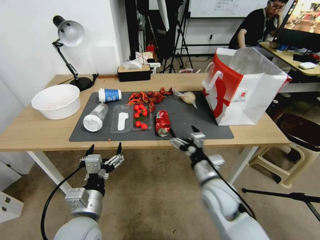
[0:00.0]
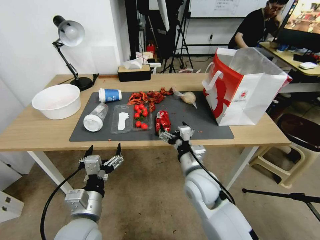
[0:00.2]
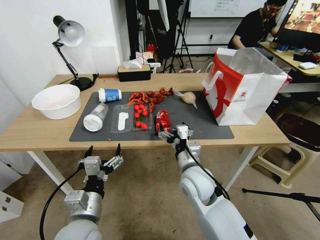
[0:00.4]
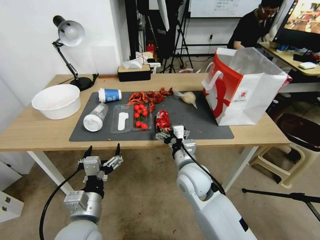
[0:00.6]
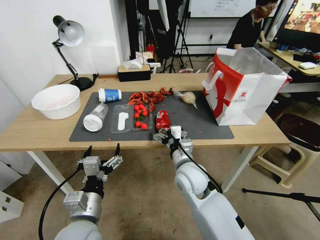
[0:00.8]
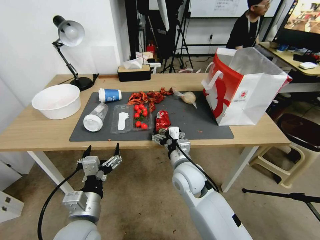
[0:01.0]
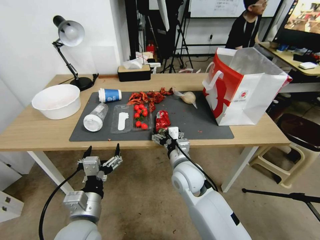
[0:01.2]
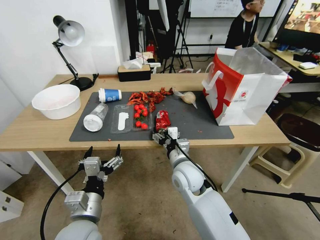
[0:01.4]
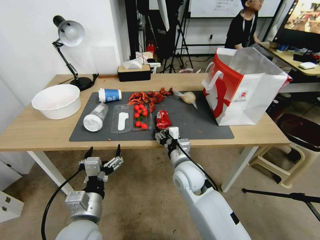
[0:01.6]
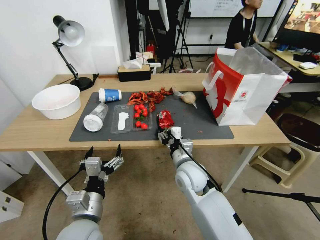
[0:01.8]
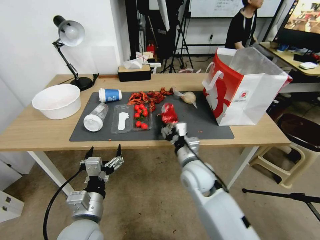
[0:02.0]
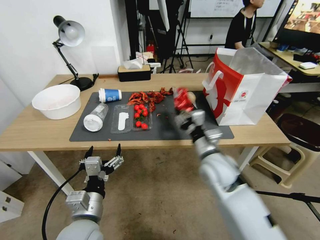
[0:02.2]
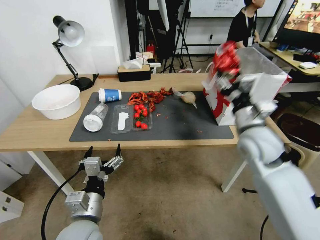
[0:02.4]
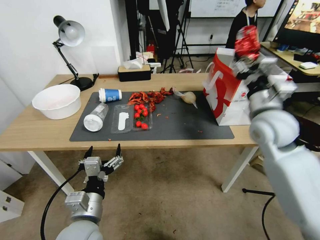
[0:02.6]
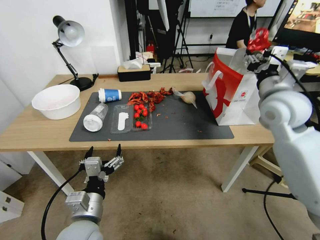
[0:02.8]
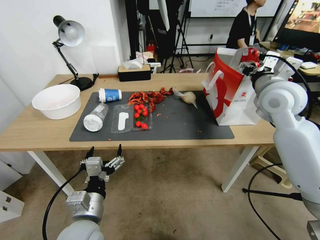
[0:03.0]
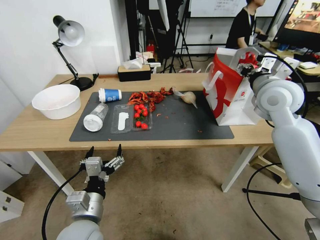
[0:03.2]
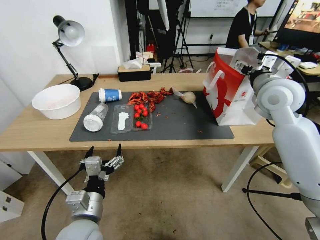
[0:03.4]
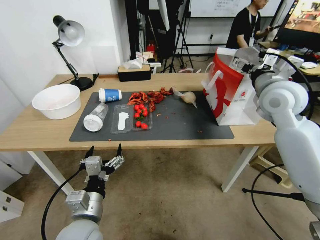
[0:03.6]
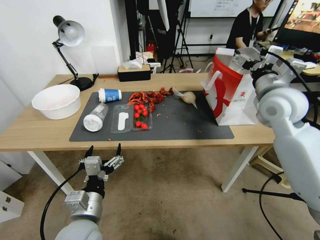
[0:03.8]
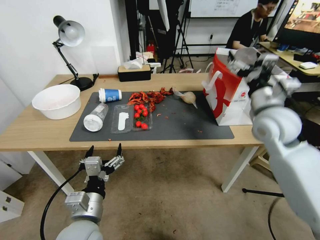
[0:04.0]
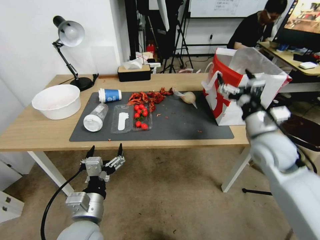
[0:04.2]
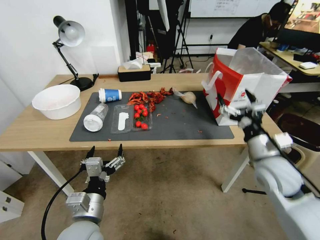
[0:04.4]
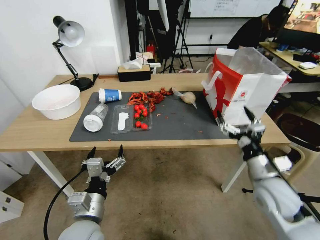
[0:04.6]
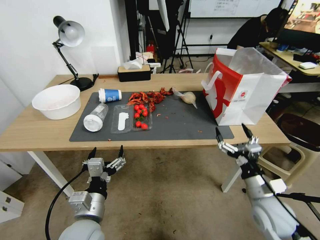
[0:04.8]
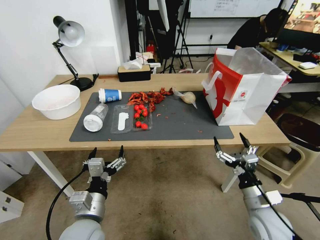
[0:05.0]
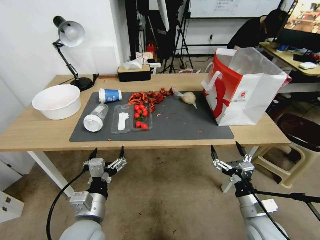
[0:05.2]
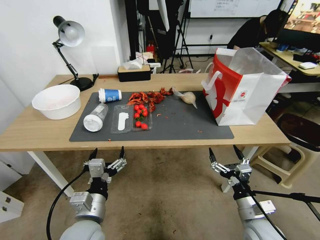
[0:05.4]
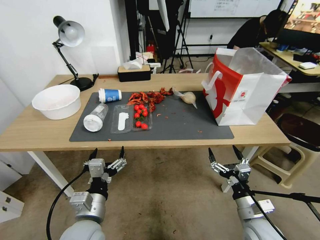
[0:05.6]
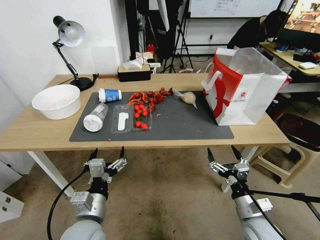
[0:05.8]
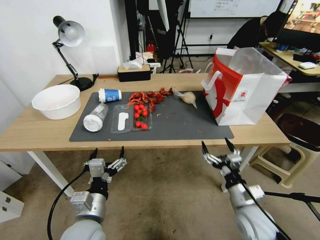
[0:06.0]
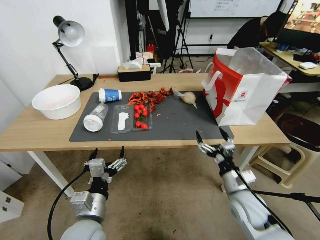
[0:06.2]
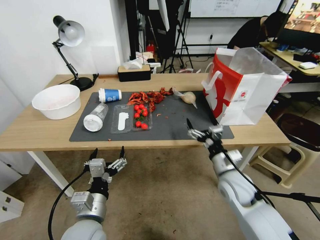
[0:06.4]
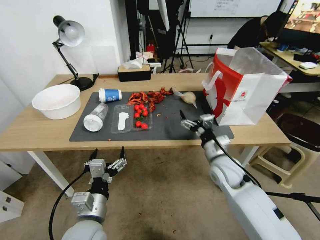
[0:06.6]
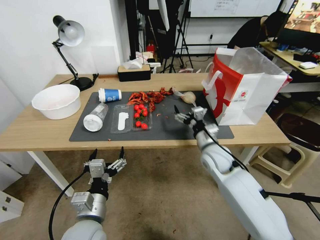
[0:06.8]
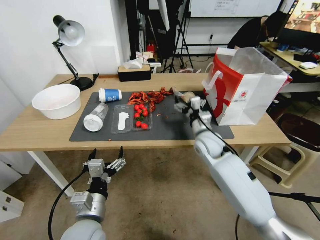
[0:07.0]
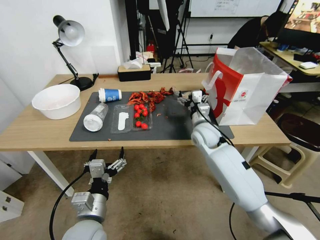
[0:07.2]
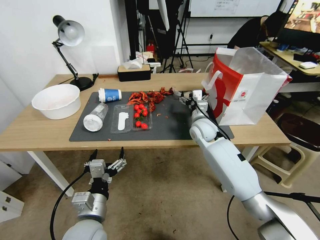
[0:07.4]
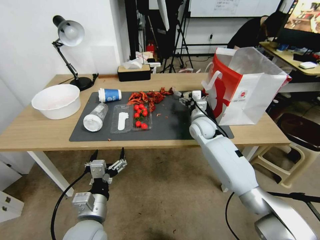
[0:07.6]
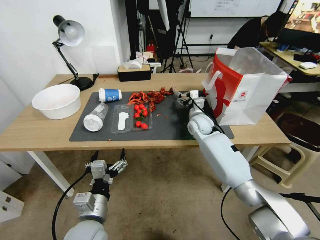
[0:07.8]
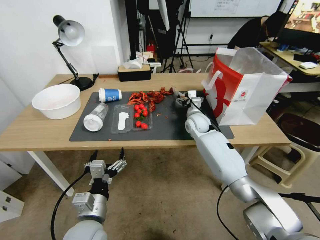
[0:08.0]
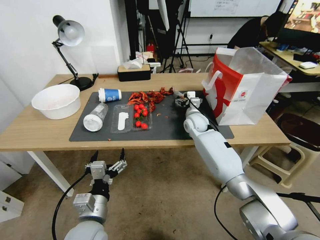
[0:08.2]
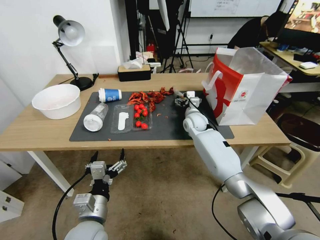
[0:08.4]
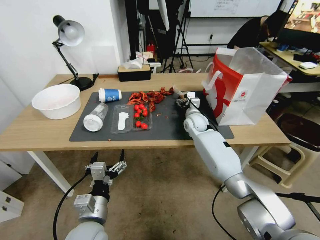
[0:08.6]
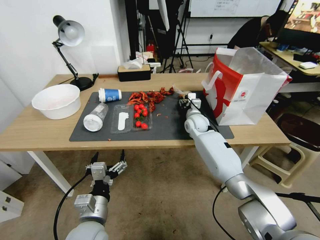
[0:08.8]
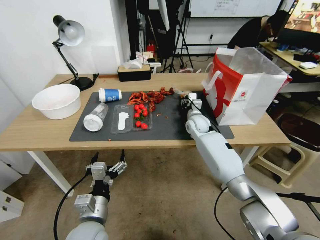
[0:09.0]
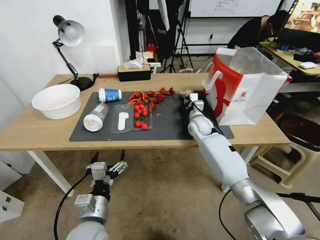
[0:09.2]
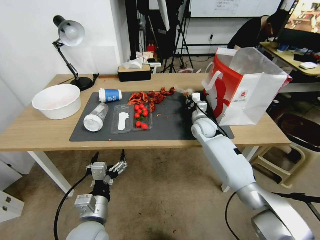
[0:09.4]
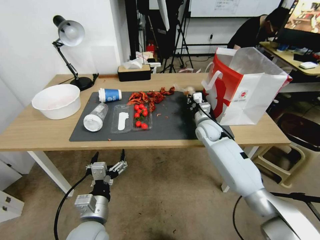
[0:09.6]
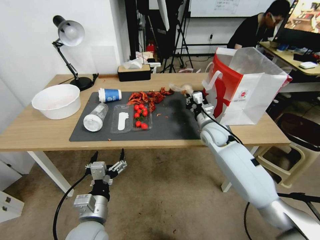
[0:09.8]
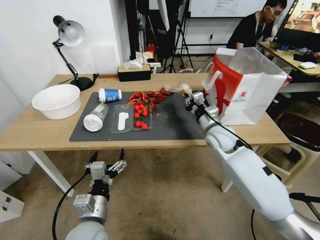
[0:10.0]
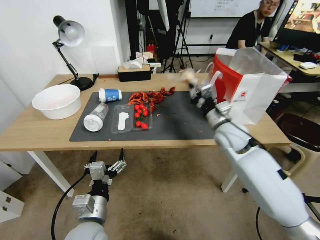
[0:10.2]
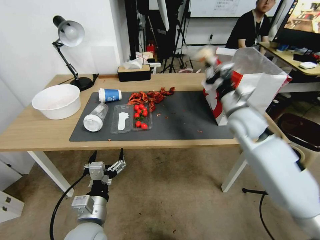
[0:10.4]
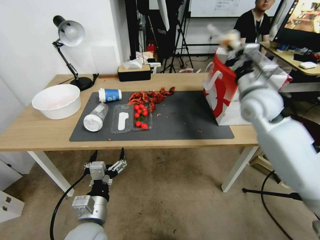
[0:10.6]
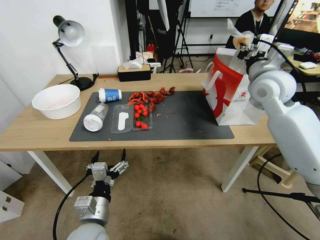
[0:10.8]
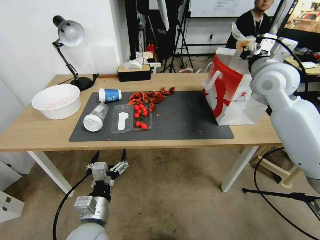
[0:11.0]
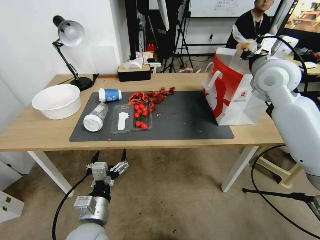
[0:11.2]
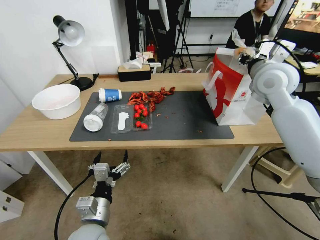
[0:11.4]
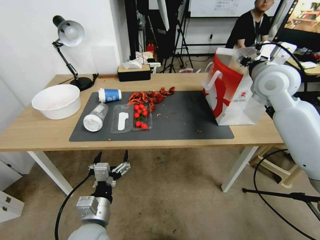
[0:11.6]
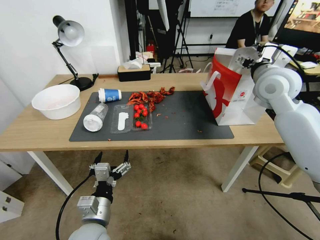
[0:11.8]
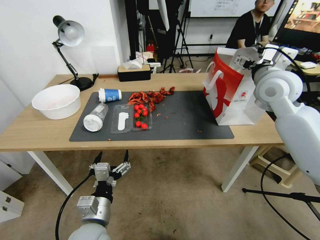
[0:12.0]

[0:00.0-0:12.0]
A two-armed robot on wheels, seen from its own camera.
0:00.0 to 0:01.6: The right gripper travels to the left and forward by roughly 15 cm, and closes up.
0:01.6 to 0:03.0: The right gripper moves upward and to the right, some 30 cm.
0:03.0 to 0:04.4: The right gripper goes roughly 20 cm downward and backward, and opens.
0:04.4 to 0:06.0: The right gripper shifts roughly 15 cm downward and backward.
0:06.0 to 0:07.6: The right gripper moves forward, some 30 cm.
0:07.6 to 0:09.0: The right gripper is displaced forward by some 5 cm, and closes up.
0:09.0 to 0:10.4: The right gripper is displaced upward, backward and to the right by approximately 20 cm.
0:10.4 to 0:12.0: The right gripper moves upward and to the right, some 15 cm, and opens its fingers.

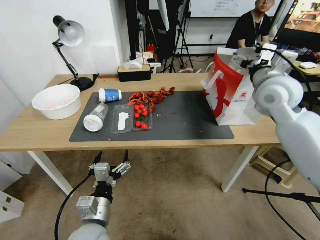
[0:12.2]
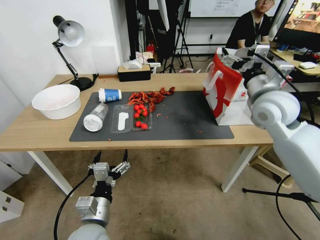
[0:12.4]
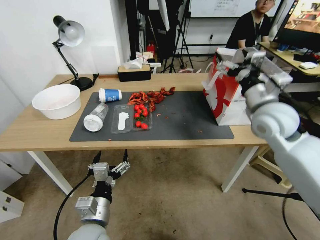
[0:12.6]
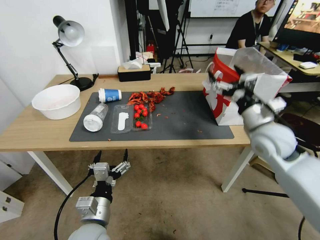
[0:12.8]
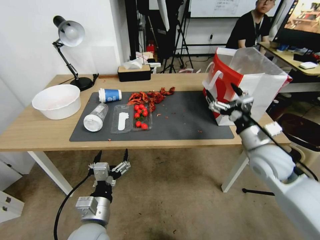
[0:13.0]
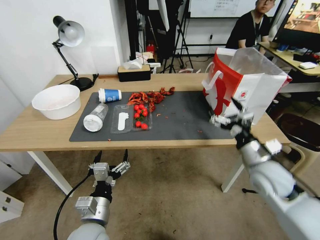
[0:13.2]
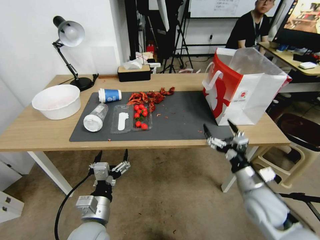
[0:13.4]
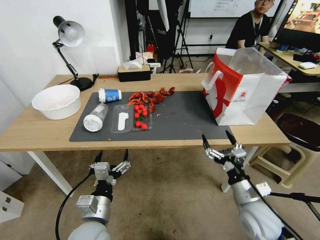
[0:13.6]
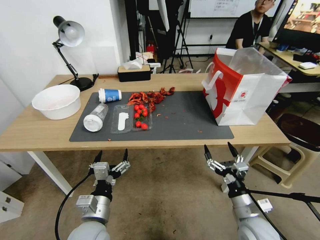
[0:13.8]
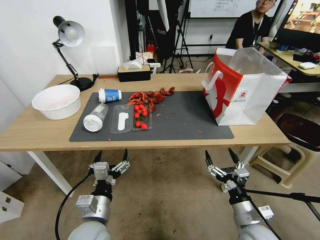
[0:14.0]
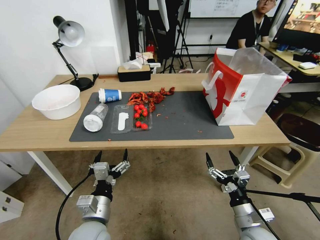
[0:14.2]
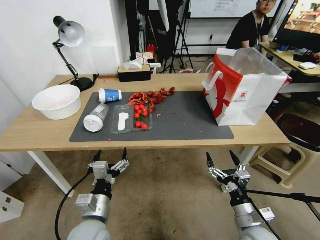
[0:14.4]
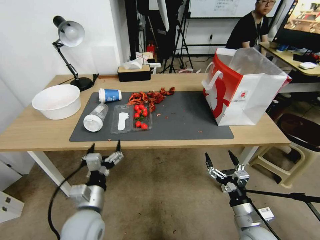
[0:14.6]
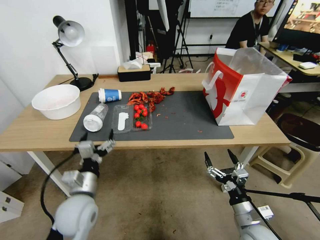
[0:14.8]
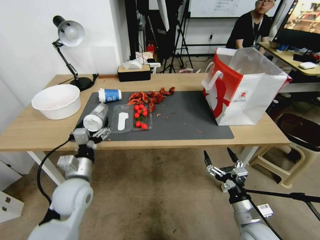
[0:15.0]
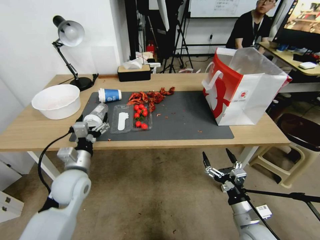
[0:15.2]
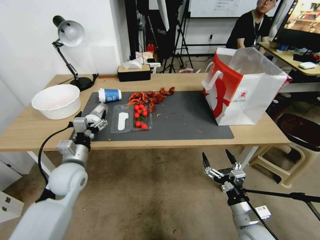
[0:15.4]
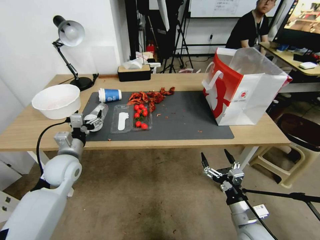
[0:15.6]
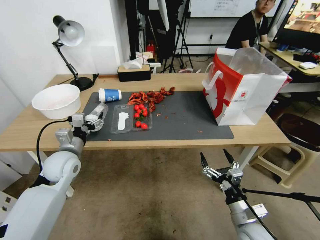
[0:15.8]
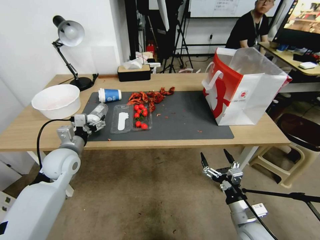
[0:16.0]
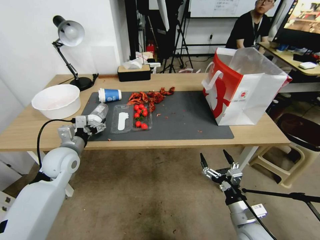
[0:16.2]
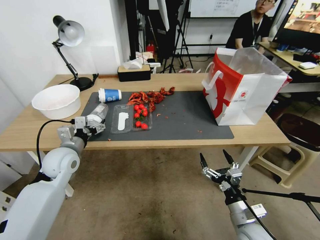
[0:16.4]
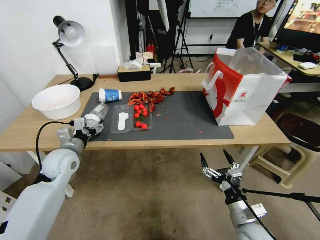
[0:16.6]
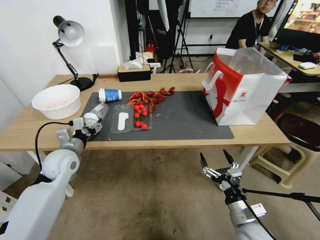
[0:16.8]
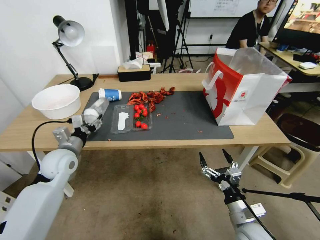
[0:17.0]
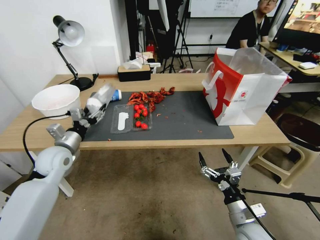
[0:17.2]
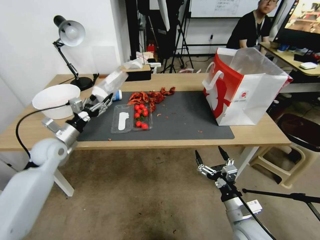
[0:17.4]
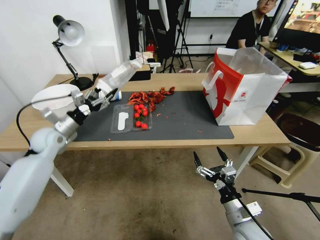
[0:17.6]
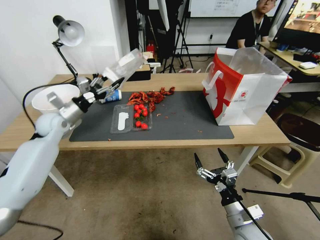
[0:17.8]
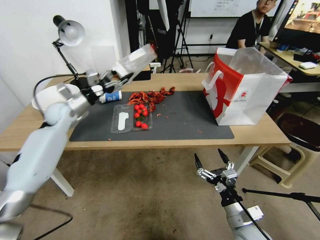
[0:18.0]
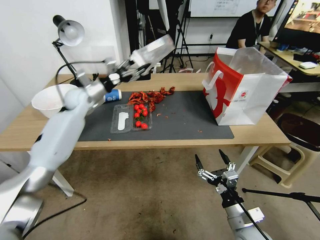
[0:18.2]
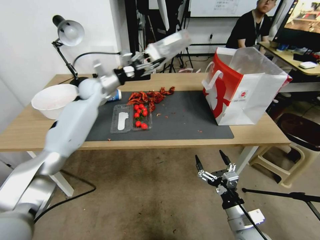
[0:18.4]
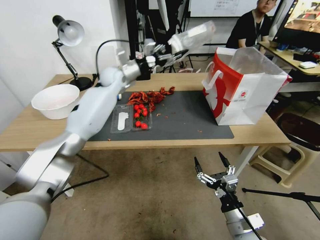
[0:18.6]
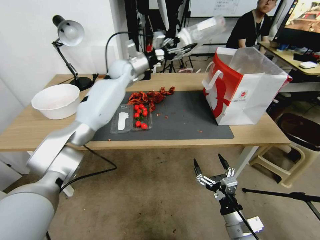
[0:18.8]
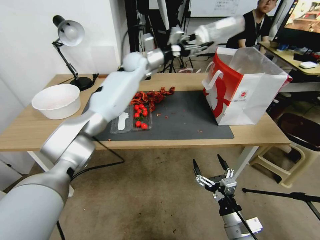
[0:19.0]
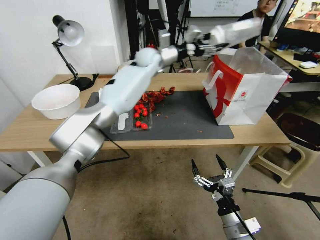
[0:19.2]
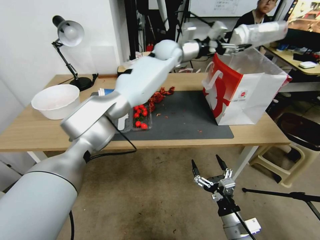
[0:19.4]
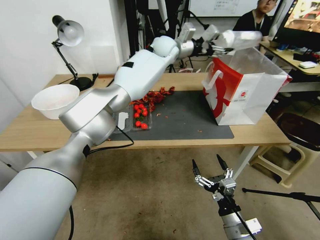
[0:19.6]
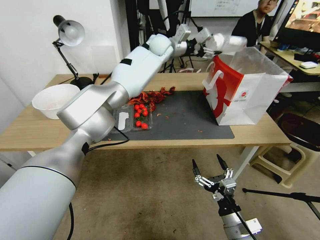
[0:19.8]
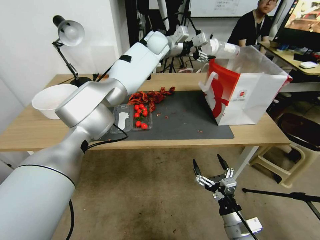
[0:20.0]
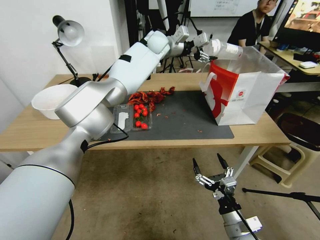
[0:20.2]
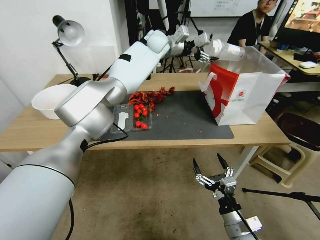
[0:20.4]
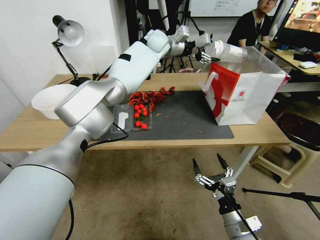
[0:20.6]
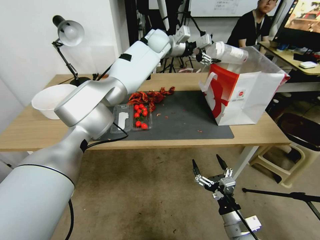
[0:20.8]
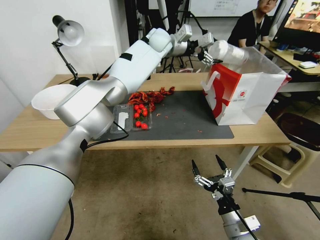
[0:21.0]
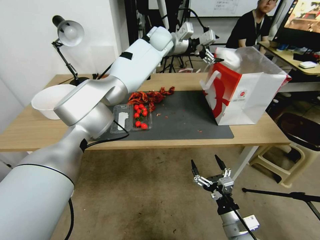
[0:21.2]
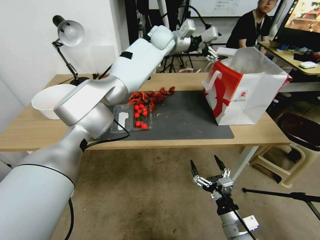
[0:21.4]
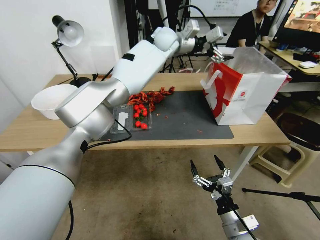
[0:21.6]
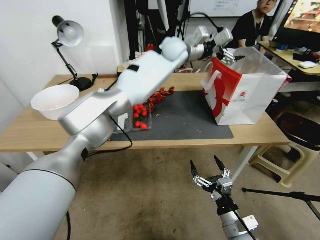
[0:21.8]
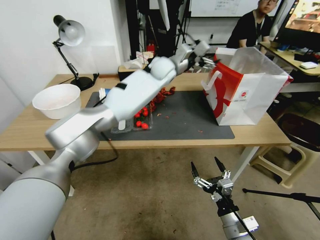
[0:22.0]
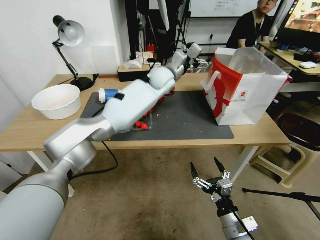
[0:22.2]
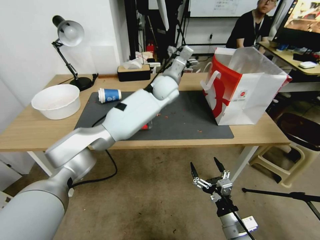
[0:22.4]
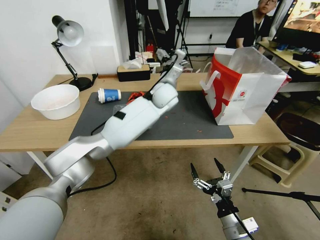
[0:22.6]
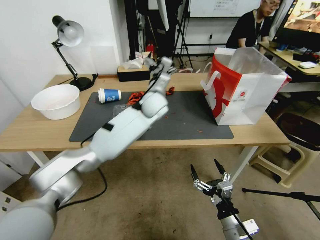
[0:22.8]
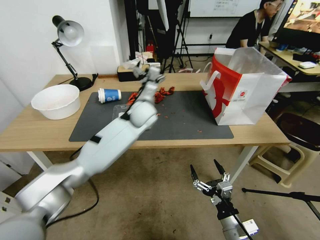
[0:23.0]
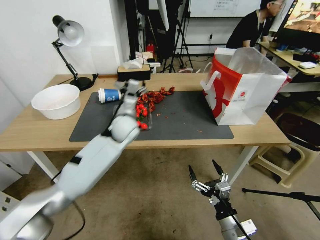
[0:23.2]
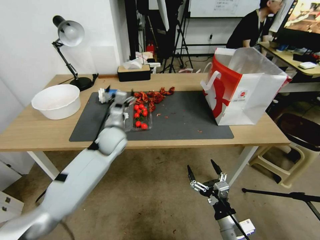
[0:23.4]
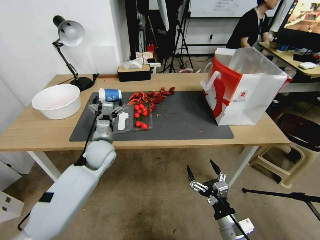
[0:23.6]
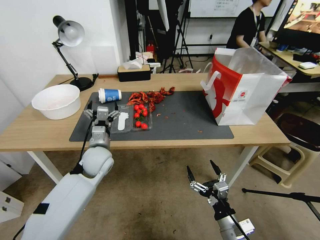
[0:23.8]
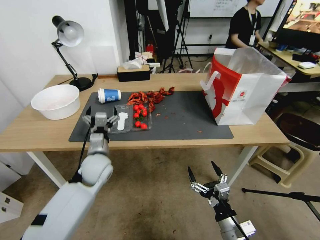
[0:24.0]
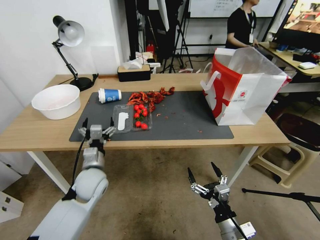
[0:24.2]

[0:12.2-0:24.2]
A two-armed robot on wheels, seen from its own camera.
0:12.2 to 0:13.8: The right gripper moves downward and backward, roughly 40 cm.
0:13.8 to 0:15.2: The left gripper is displaced forward and to the left by roughly 15 cm.
0:15.2 to 0:16.6: The left gripper heads forward and to the left, covering approximately 10 cm, and closes up.
0:16.6 to 0:18.2: The left gripper goes roughly 25 cm forward and upward, and closes up.
0:18.2 to 0:19.8: The left gripper is displaced to the right, upward and forward by some 35 cm.
0:19.8 to 0:21.2: The left gripper opens its fingers.
0:21.2 to 0:22.6: The left gripper moves downward and backward, about 20 cm.
0:22.6 to 0:24.2: The left gripper moves backward, to the left and downward, some 40 cm.
